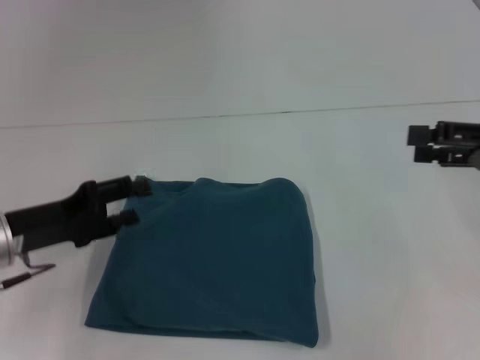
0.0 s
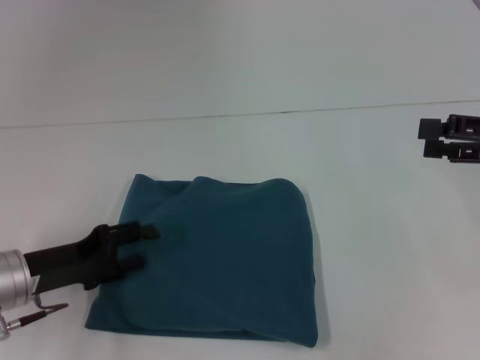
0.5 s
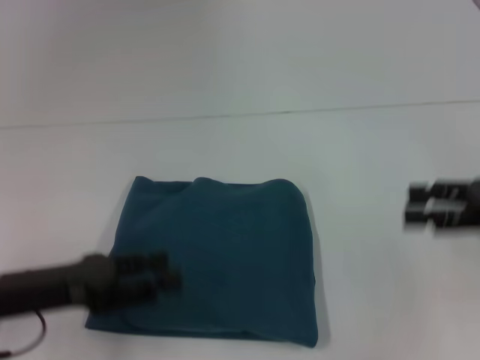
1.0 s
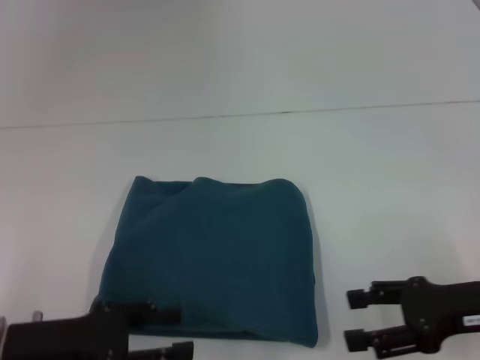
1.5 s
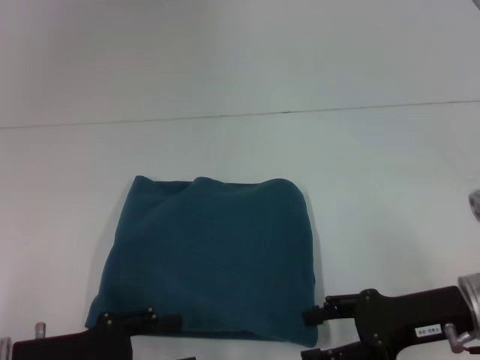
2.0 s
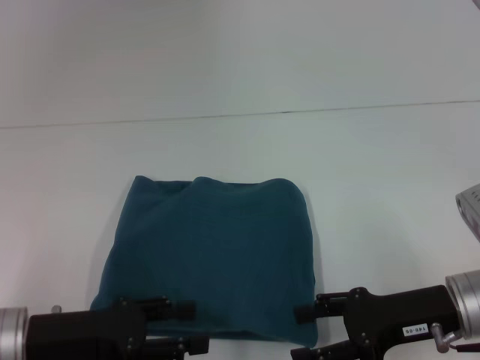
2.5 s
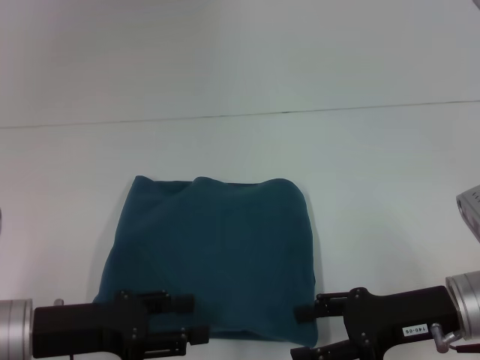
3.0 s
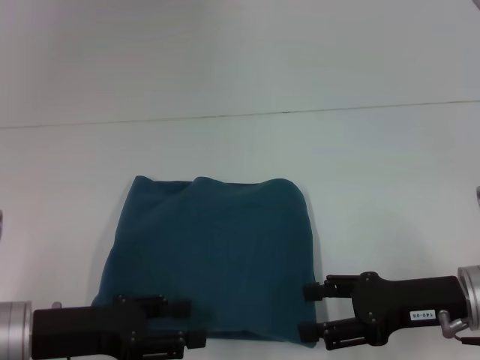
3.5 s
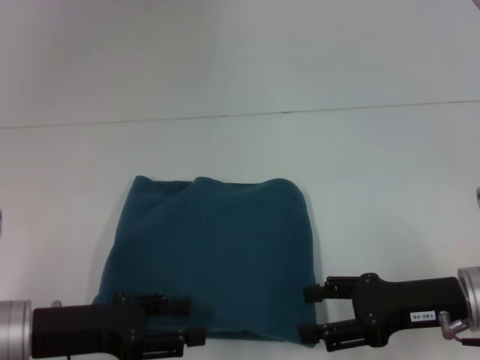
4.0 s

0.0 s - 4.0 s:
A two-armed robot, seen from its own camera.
0.0 s - 2.0 s: The right gripper travels to the left, downward and backward by roughly 15 cm. The left gripper heads backward, covering about 10 cm.
2.0 s - 4.0 s: There are only small adjustments of the grippers.
